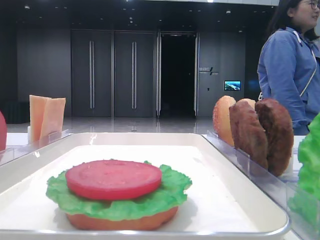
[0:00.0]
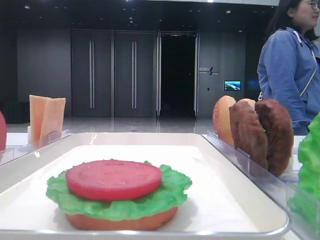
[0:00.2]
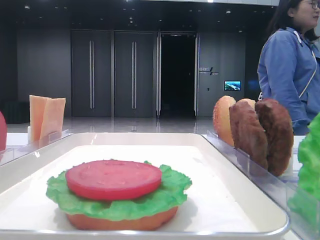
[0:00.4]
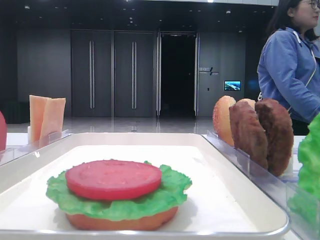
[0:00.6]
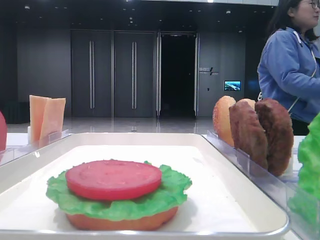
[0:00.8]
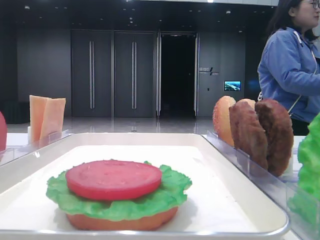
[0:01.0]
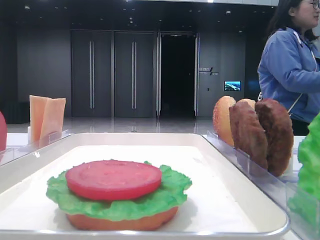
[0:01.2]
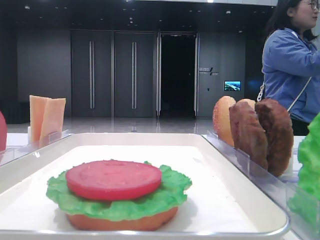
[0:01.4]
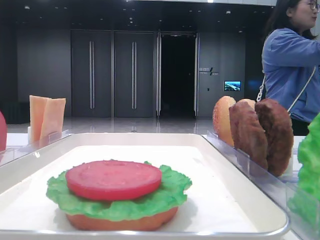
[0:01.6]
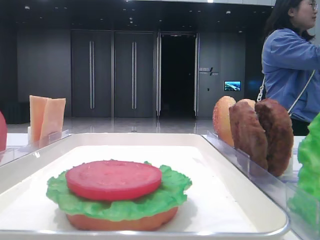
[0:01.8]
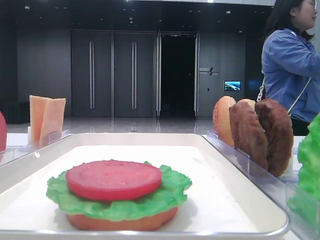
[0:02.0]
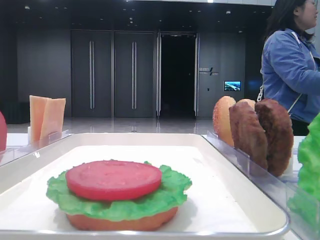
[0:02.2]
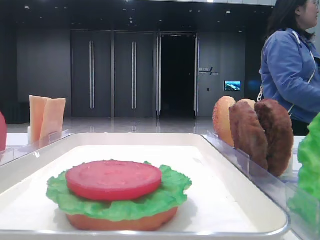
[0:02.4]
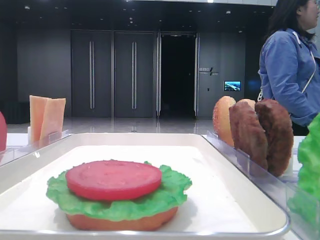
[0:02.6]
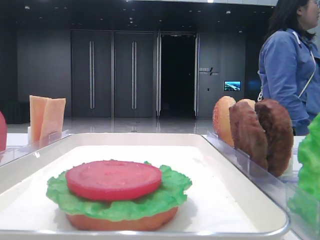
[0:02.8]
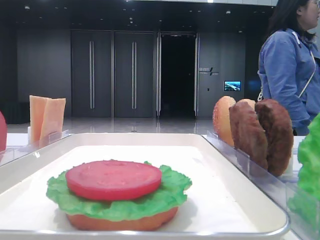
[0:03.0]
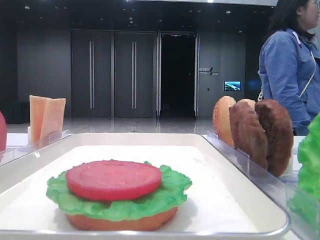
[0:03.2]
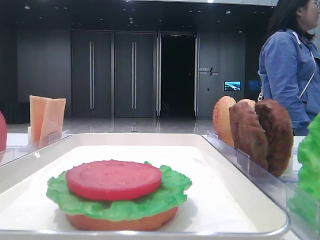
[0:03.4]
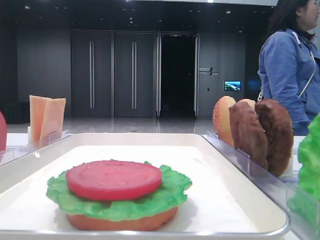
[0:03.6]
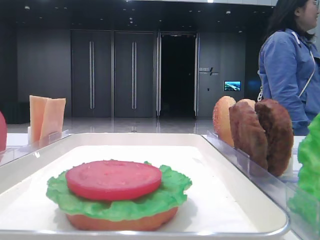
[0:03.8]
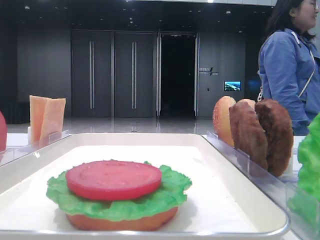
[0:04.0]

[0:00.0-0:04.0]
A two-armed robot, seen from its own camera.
0:02.6 to 0:04.0: Neither gripper changes place.

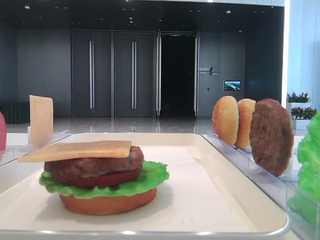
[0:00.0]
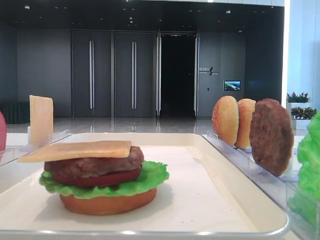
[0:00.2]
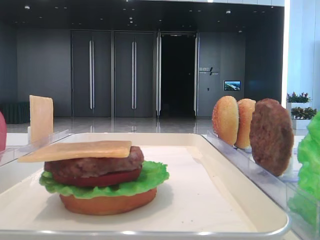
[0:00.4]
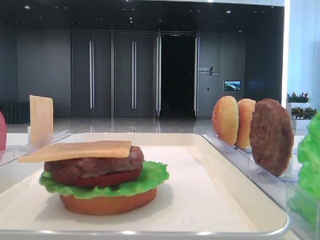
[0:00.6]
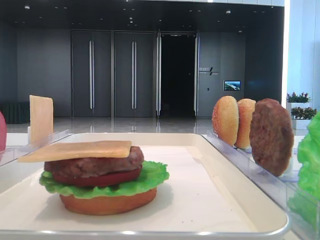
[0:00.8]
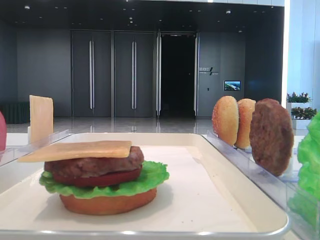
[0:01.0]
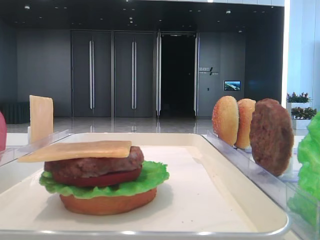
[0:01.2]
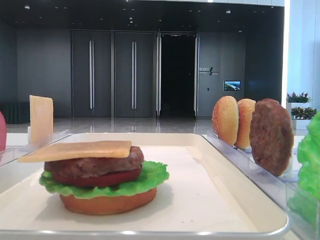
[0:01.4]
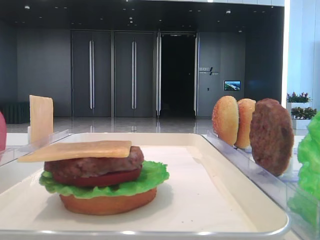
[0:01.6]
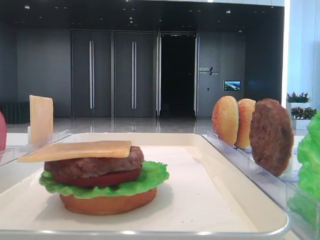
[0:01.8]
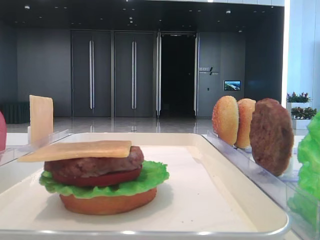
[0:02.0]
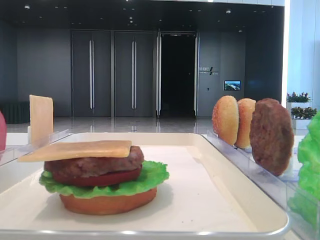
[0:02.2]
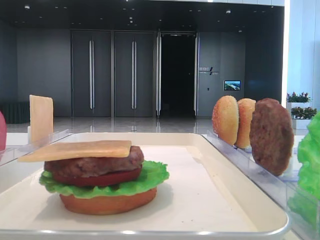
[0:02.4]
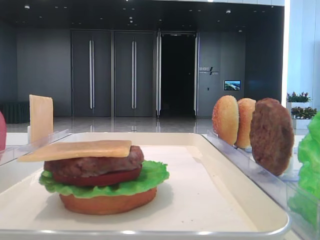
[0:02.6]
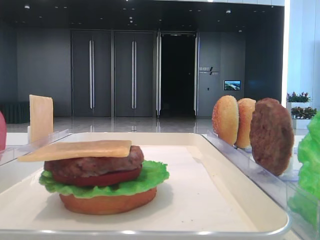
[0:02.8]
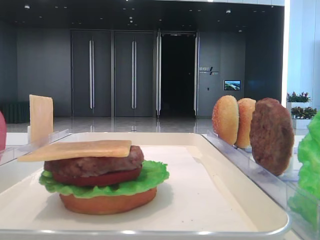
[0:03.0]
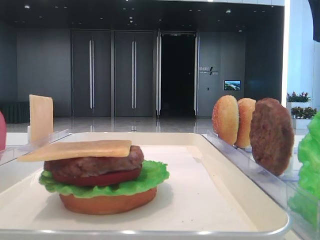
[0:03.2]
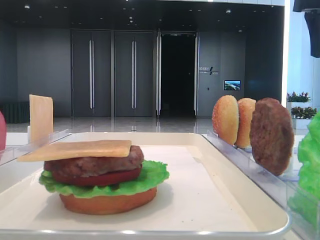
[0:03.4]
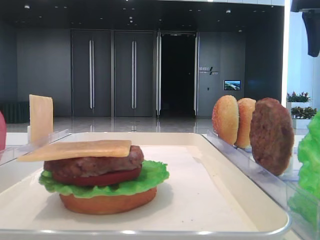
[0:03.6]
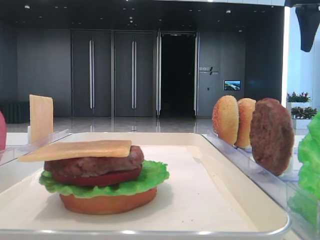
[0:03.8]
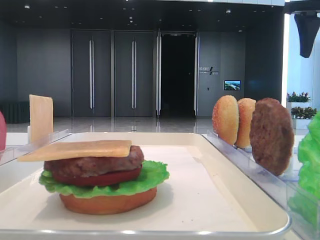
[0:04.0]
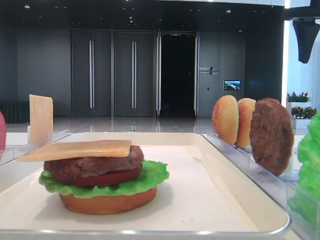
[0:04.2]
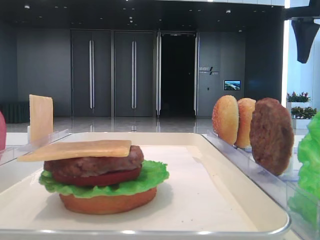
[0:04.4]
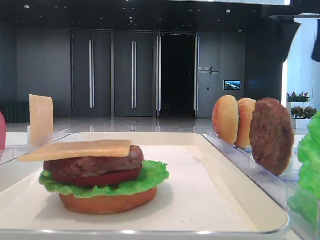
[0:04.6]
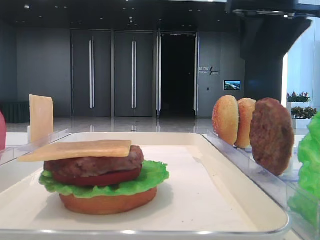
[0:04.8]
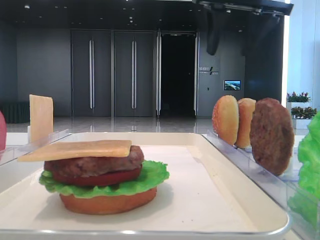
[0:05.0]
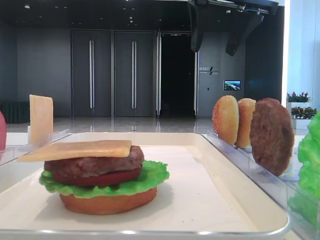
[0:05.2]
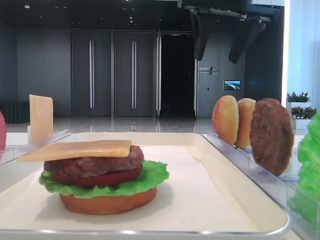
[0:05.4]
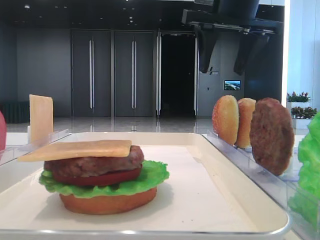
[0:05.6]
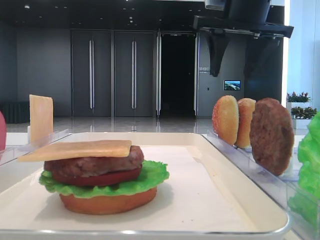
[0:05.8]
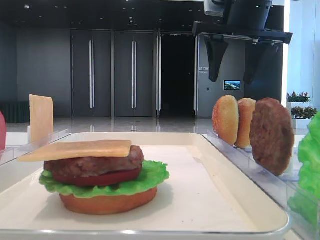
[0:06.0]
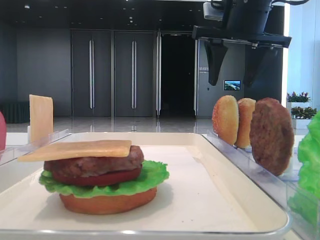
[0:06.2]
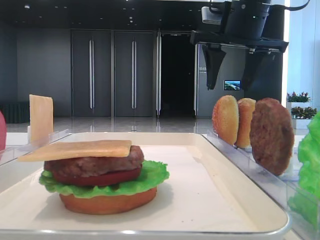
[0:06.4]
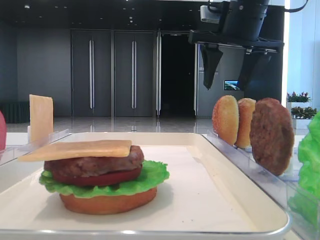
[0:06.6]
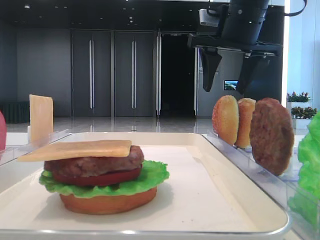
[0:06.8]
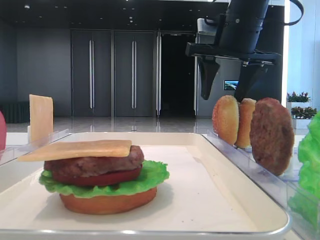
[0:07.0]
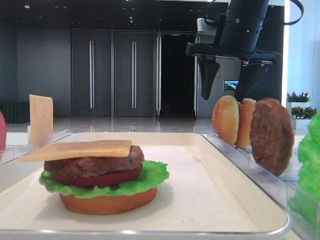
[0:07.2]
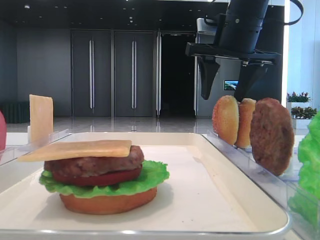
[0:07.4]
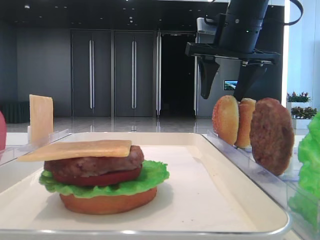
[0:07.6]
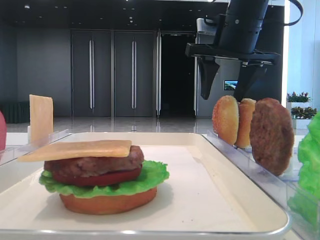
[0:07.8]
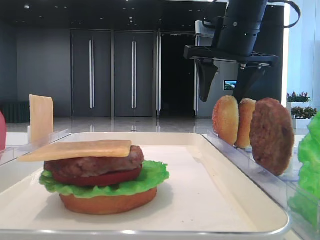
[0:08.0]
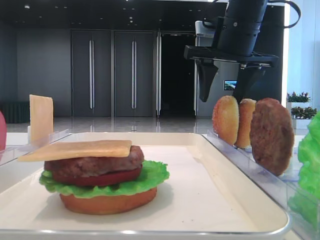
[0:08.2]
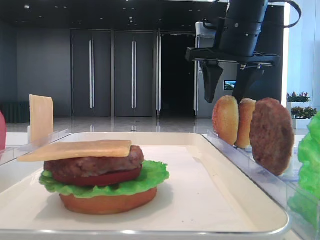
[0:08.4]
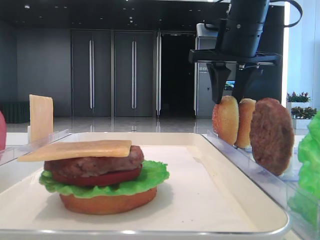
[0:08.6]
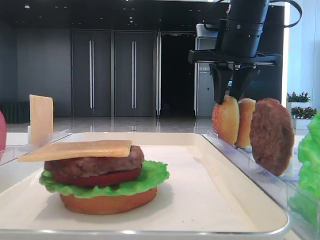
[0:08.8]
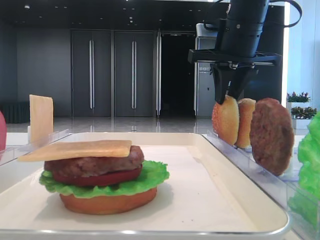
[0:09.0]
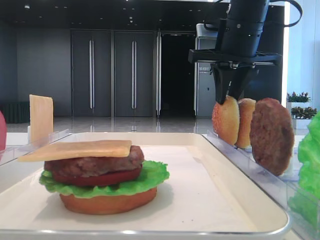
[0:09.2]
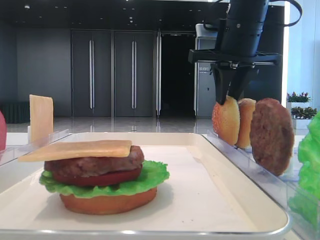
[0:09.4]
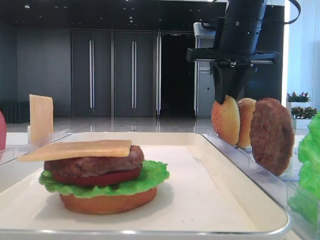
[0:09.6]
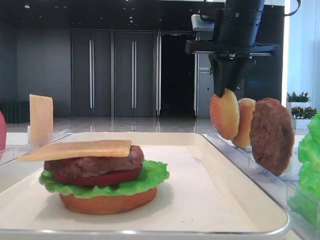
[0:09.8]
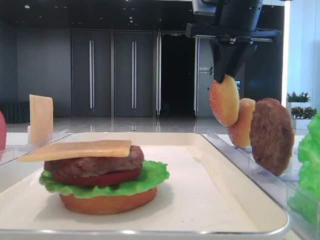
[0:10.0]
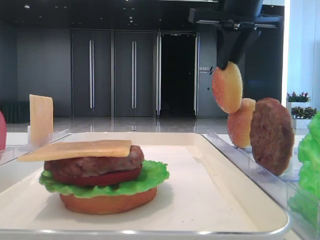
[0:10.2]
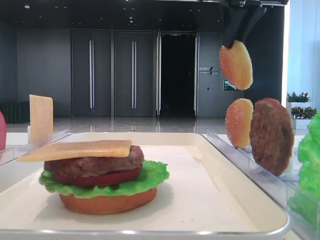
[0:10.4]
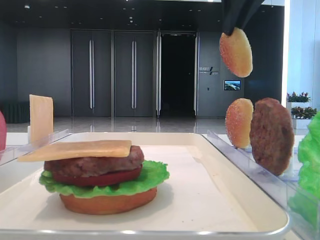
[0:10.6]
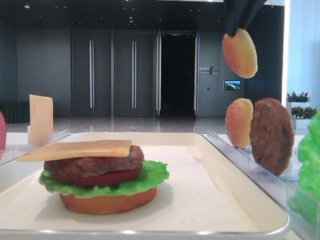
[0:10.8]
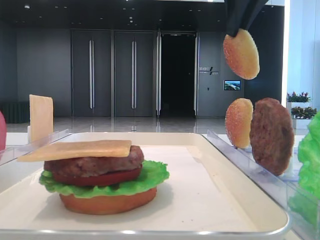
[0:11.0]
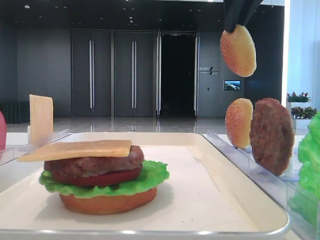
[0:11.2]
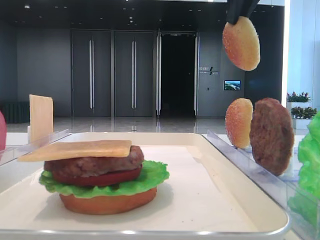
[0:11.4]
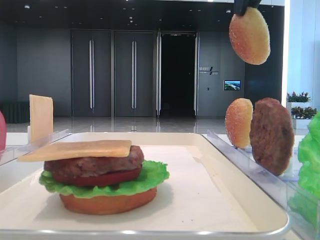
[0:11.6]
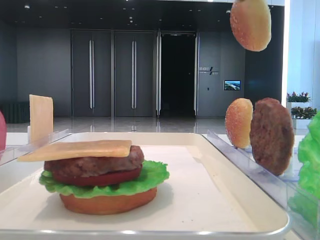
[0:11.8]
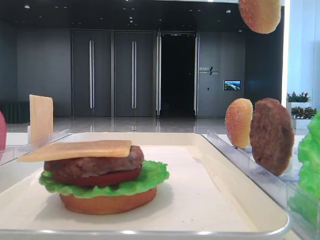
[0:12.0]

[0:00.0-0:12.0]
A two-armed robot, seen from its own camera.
Step, 0:00.0 to 0:09.0: Pick up the top bread slice with the right hand.
0:03.0 to 0:04.4: The right gripper shifts roughly 5 cm forward and downward.
0:04.4 to 0:06.0: The right gripper heads to the left, covering approximately 15 cm.
0:06.0 to 0:07.6: There are only small adjustments of the grippers.
0:07.6 to 0:09.0: The right gripper closes up.
0:09.0 to 0:10.4: The right gripper shifts roughly 10 cm upward, while the left gripper closes up.
0:10.4 to 0:12.0: The right gripper travels upward and backward by roughly 10 cm.

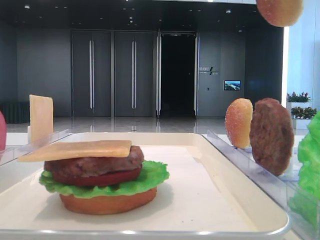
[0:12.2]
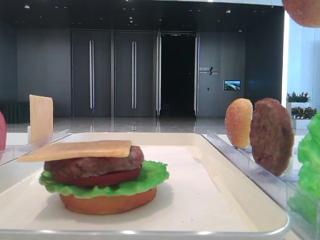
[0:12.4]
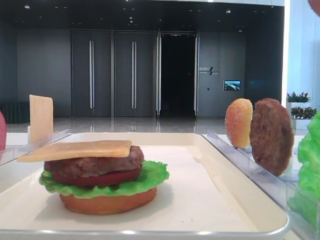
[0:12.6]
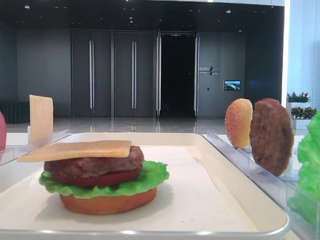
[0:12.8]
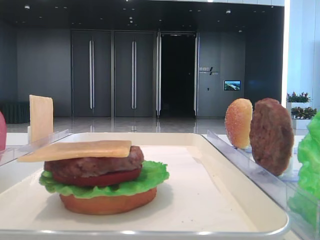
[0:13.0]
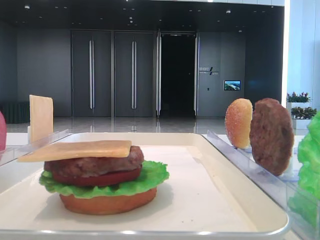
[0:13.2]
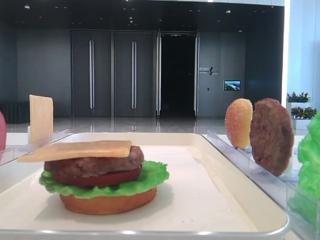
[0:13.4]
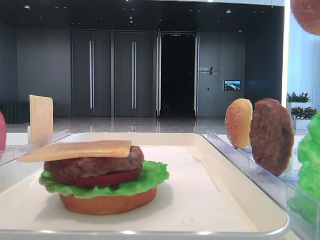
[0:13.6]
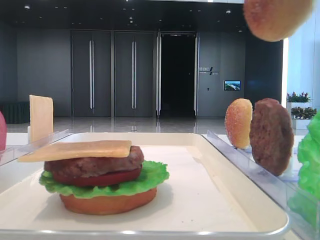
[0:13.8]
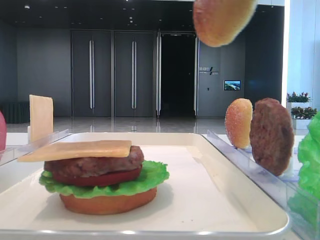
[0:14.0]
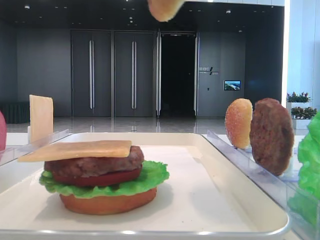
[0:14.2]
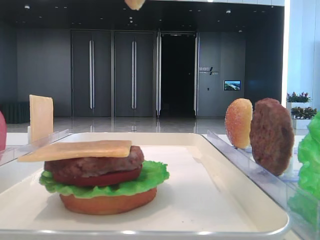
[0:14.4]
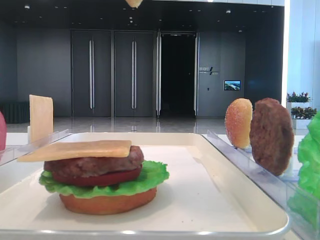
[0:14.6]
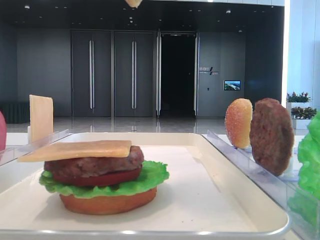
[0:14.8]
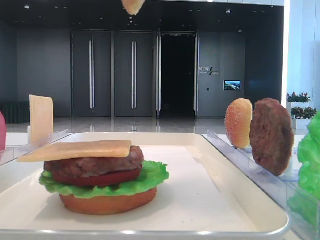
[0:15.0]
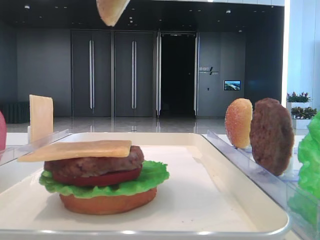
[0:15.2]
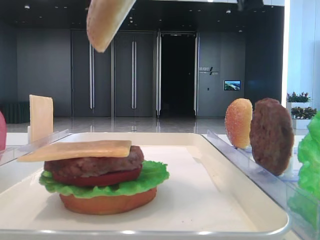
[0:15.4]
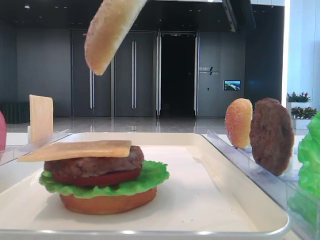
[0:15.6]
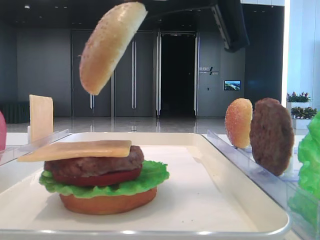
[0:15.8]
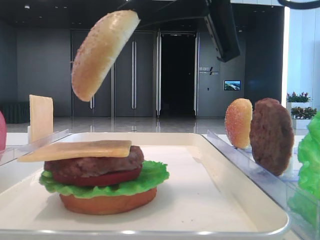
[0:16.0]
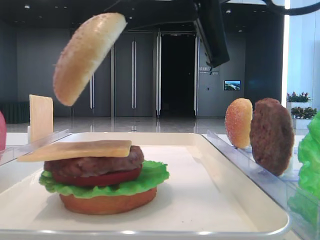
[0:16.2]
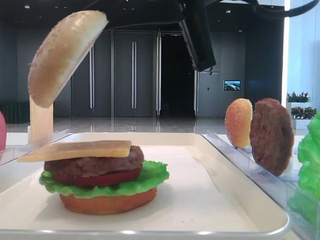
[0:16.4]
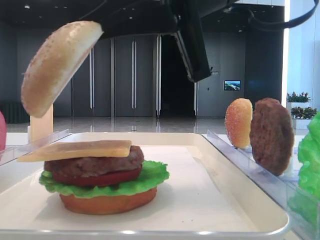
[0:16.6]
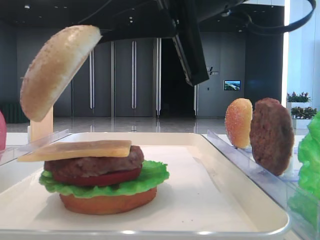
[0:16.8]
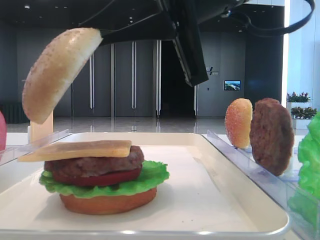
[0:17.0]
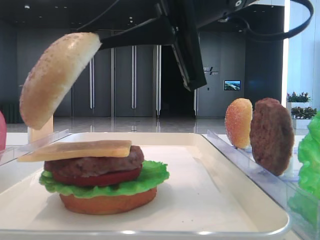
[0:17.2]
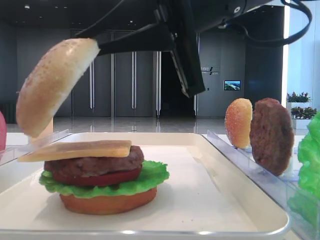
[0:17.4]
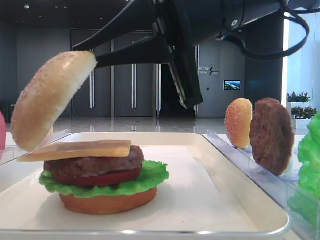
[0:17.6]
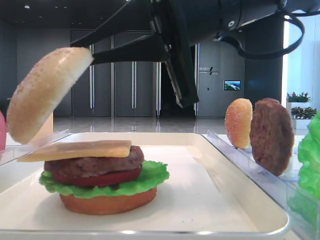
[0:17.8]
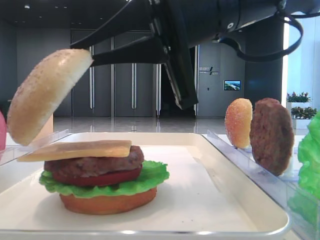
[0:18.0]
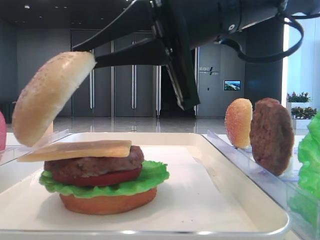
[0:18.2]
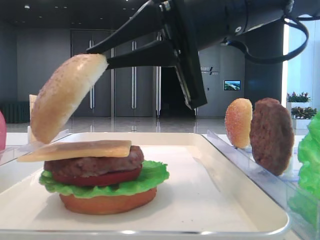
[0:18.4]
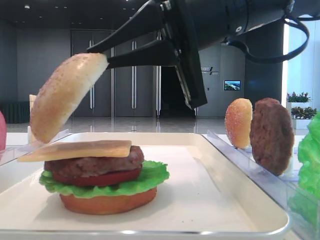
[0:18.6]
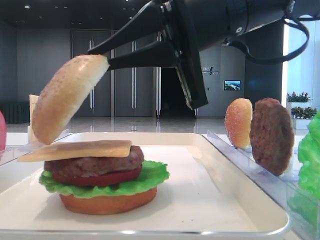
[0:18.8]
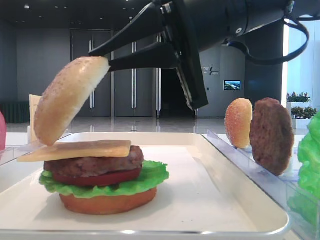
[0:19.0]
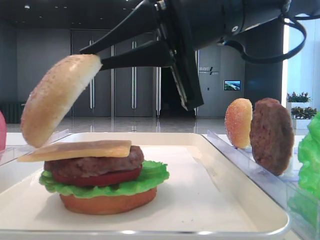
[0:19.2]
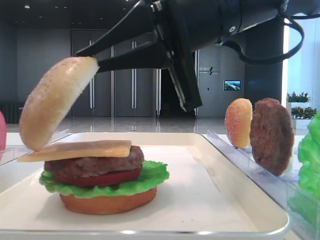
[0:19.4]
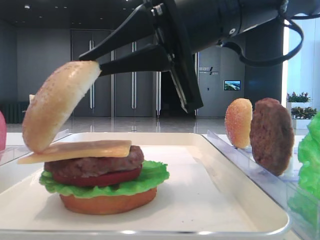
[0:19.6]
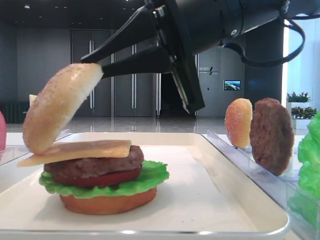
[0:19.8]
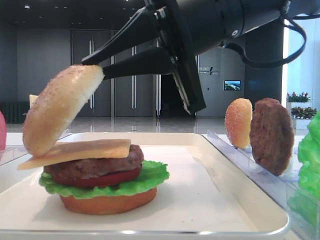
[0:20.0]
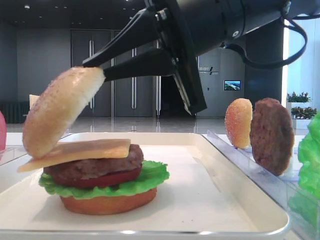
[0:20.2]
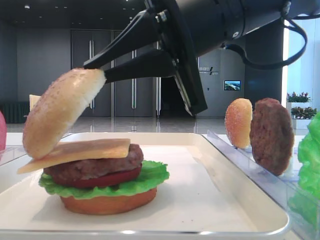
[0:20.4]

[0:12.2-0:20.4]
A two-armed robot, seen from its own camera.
0:12.2 to 0:13.8: The right gripper moves backward and downward, roughly 10 cm.
0:13.8 to 0:15.4: The right gripper is displaced to the left, forward and downward by some 10 cm.
0:15.4 to 0:17.2: The right gripper is displaced downward by about 10 cm.
0:17.2 to 0:18.8: The grippers make only small movements.
0:18.8 to 0:20.4: Both grippers stay put.
